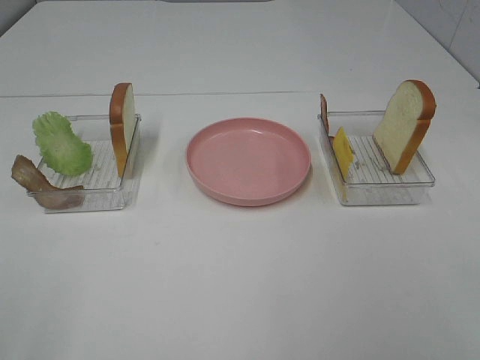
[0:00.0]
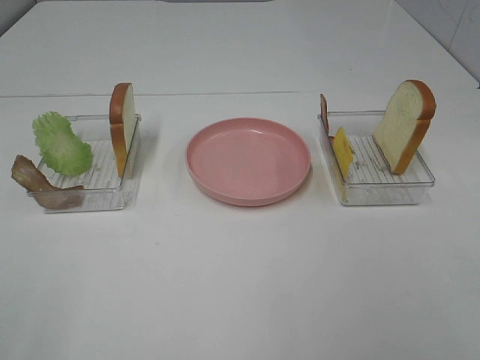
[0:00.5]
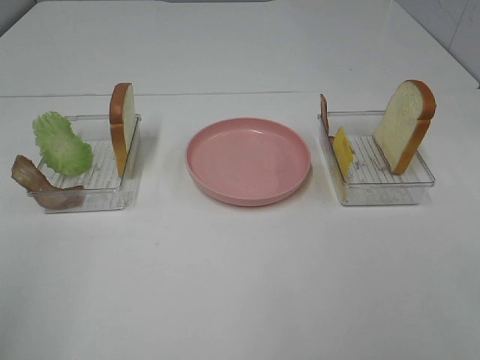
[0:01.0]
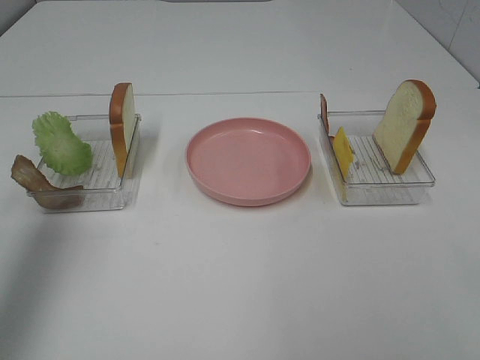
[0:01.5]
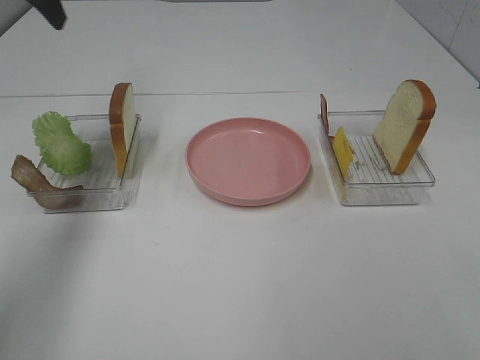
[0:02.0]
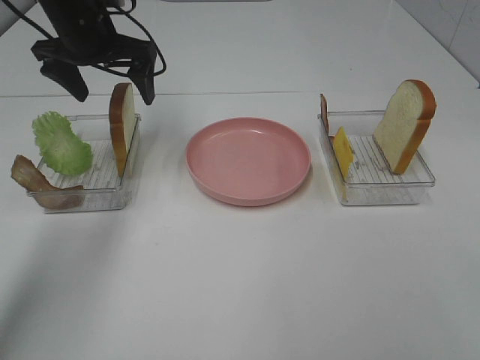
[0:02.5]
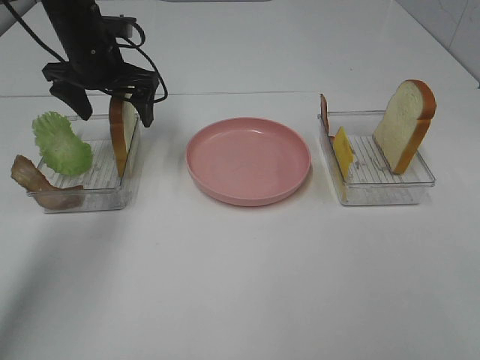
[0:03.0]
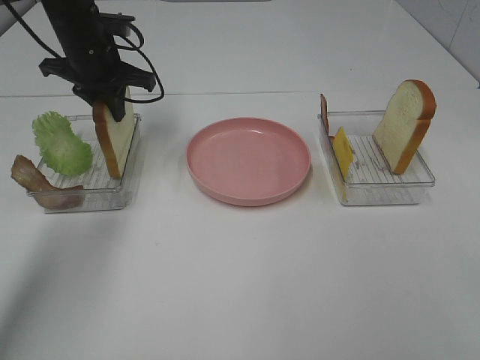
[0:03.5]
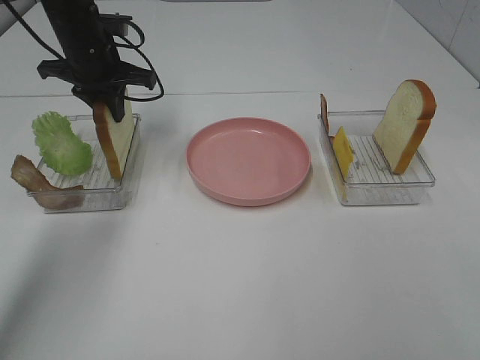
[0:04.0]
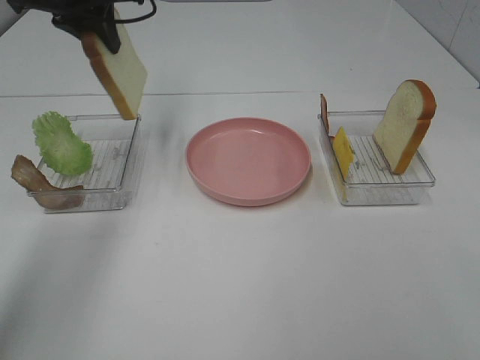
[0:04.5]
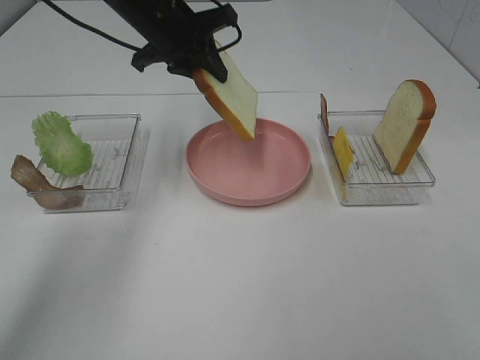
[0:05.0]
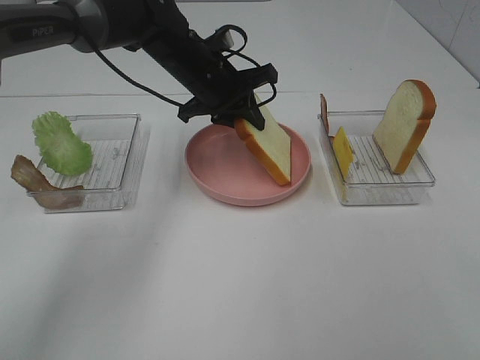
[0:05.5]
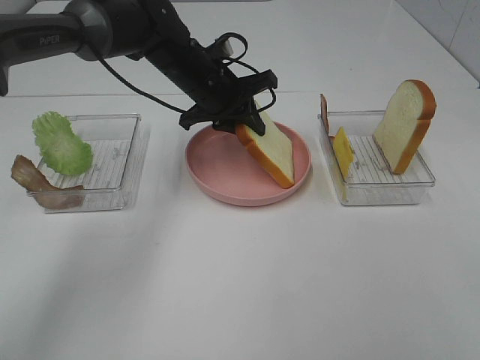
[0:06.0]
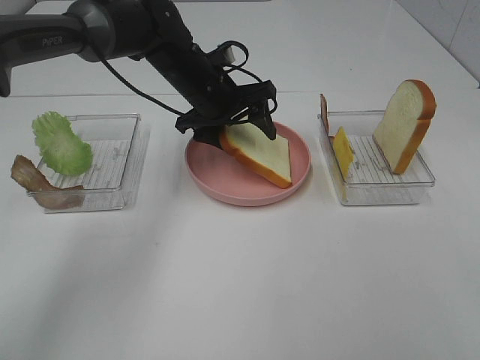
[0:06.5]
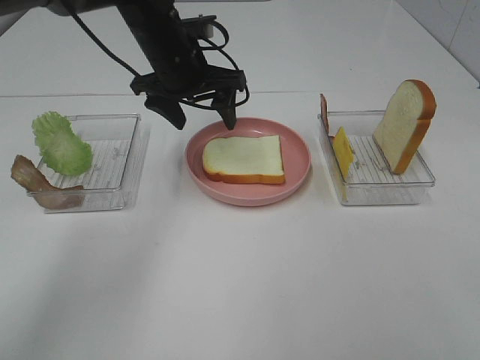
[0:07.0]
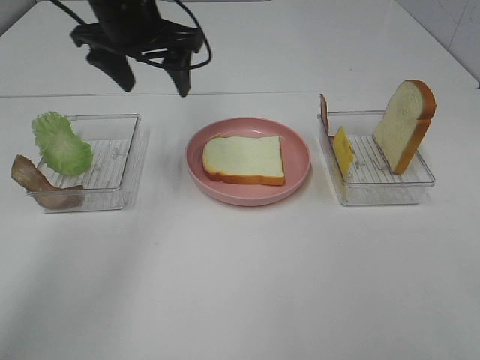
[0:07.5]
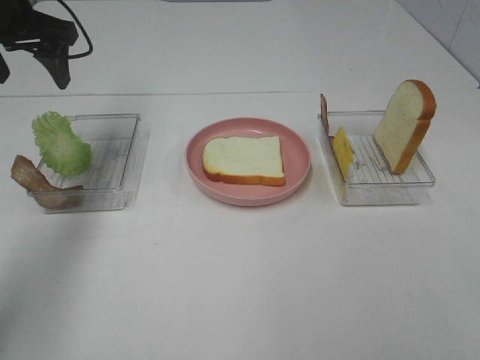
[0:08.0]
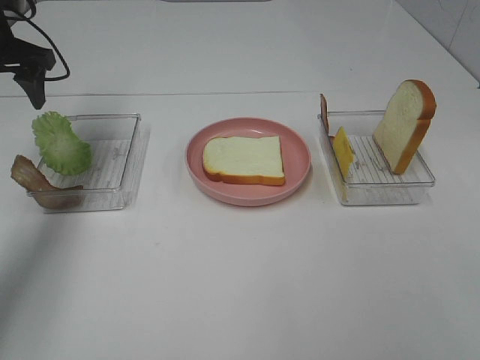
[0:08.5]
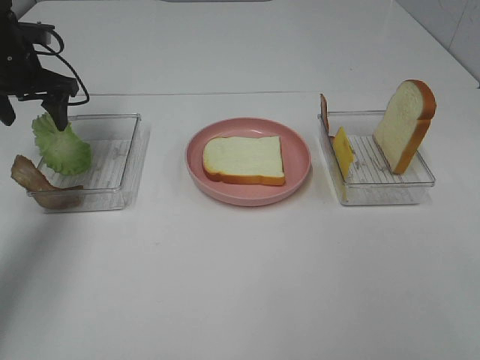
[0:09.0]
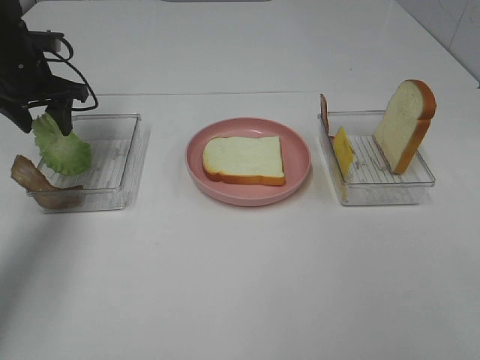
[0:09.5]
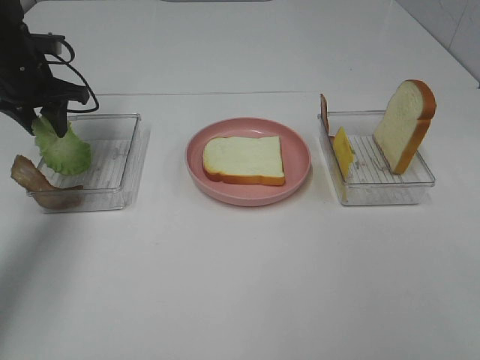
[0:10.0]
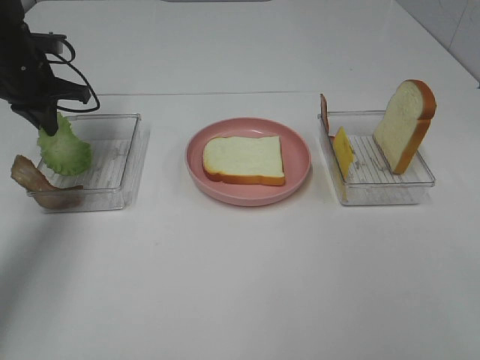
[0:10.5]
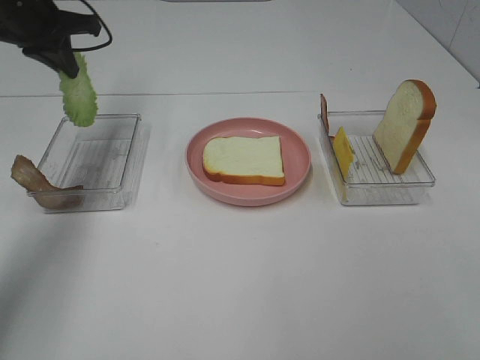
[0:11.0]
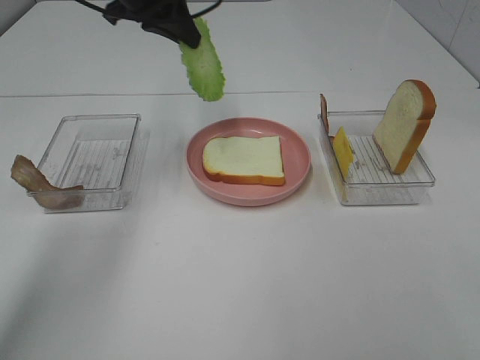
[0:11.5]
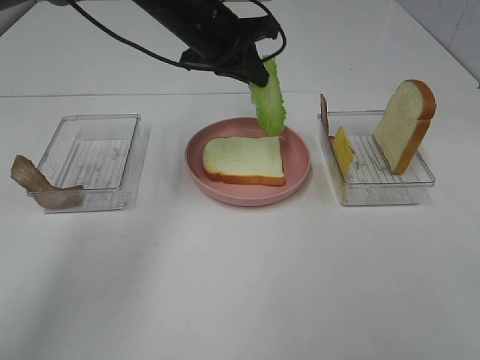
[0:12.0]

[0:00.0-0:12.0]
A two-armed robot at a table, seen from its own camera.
Task of the whole recording: Make sandwiches.
Step, 0:00.0 to 0:04.0: Left hand:grab the bread slice.
Step, 0:04.5 to 0:07.0: Left hand:place the bread slice on the plate.
Step, 0:07.5 to 0:10.0: Left hand:grab the lettuce slice.
0:00.0 to 0:02.0: The left gripper moves forward, some 40 cm.
0:02.0 to 0:04.0: The left gripper goes some 15 cm downward, forward and to the right, and closes its fingers.
0:04.0 to 0:06.0: The left gripper is displaced to the right by approximately 15 cm, and reaches some 10 cm upward, then returns.
0:06.0 to 0:08.0: The left gripper moves to the left and upward, some 25 cm, and opens its fingers.
0:08.0 to 0:10.0: The left gripper goes roughly 10 cm downward and forward.
0:10.0 to 0:12.0: The left gripper heads to the right, covering some 25 cm, and closes up.

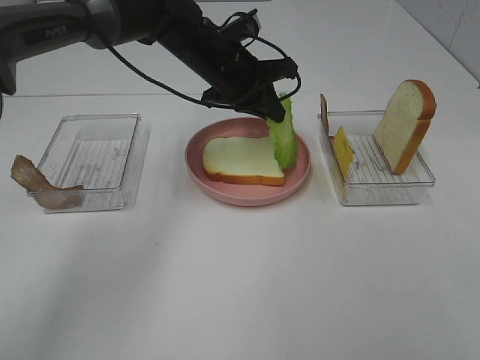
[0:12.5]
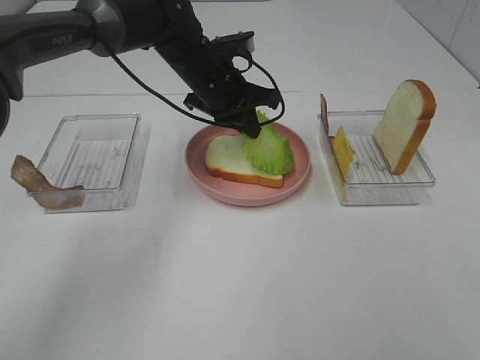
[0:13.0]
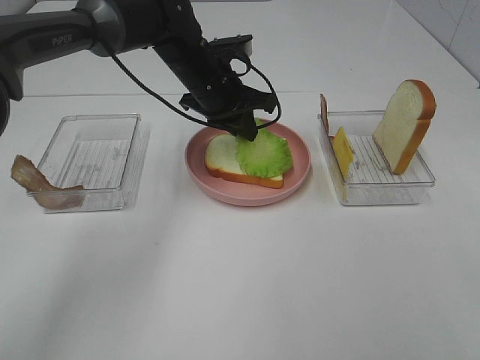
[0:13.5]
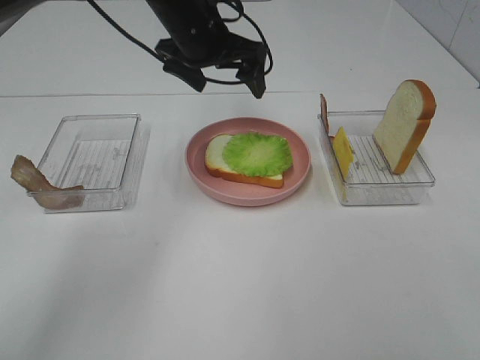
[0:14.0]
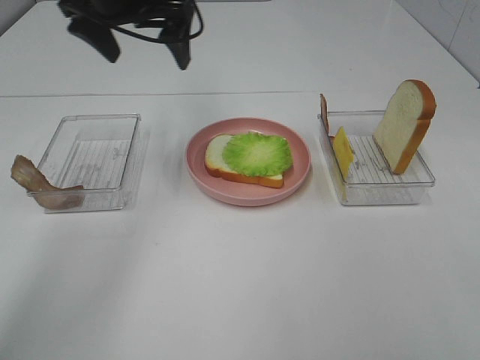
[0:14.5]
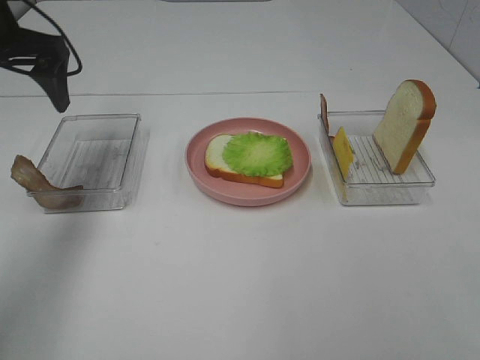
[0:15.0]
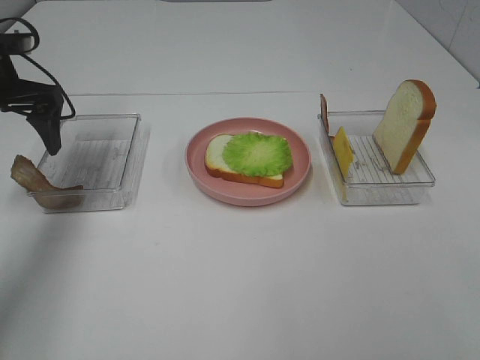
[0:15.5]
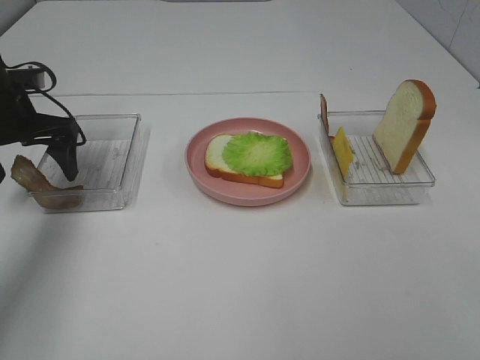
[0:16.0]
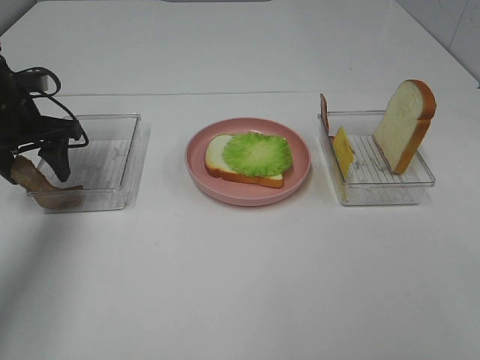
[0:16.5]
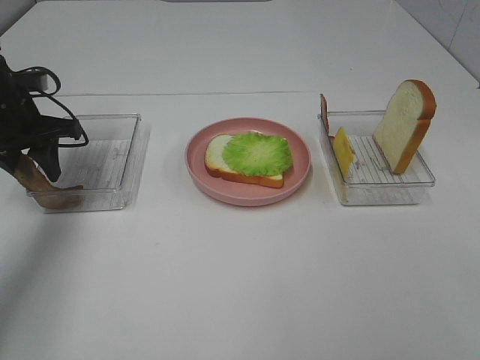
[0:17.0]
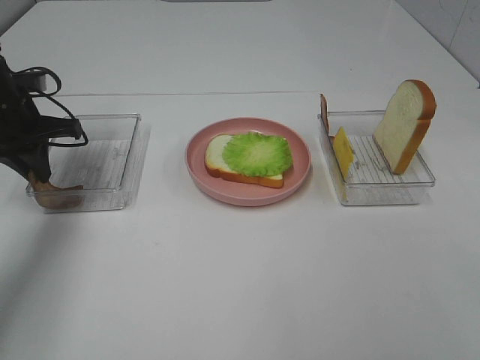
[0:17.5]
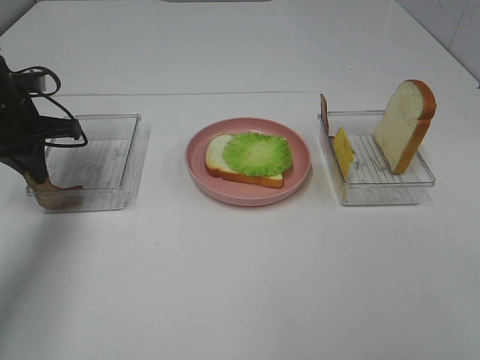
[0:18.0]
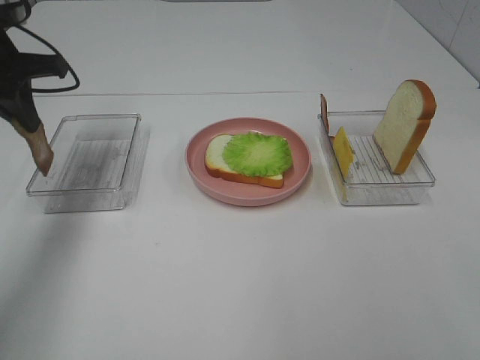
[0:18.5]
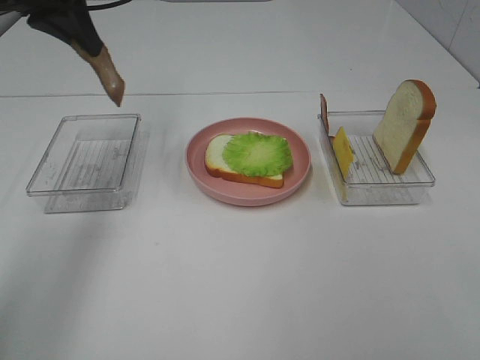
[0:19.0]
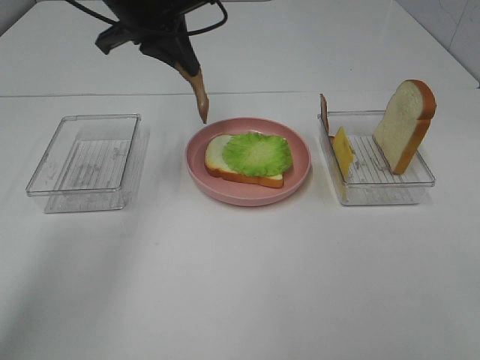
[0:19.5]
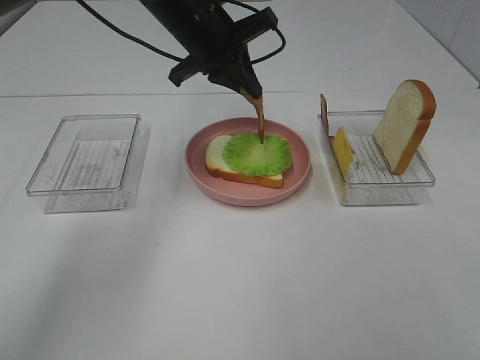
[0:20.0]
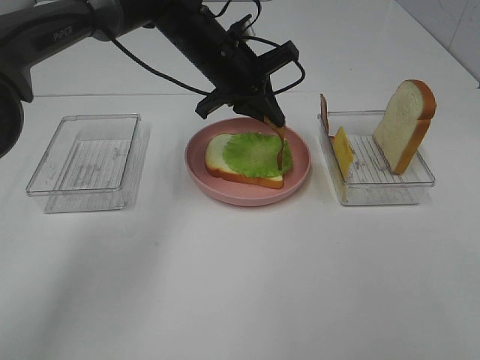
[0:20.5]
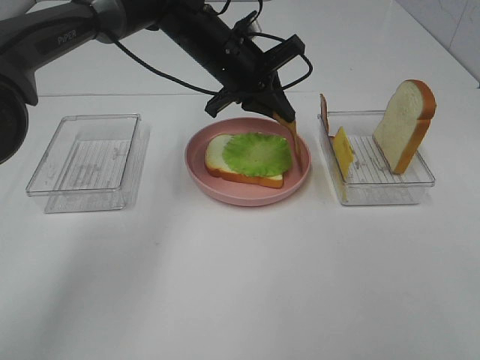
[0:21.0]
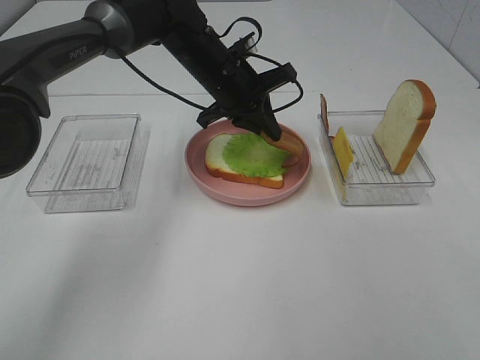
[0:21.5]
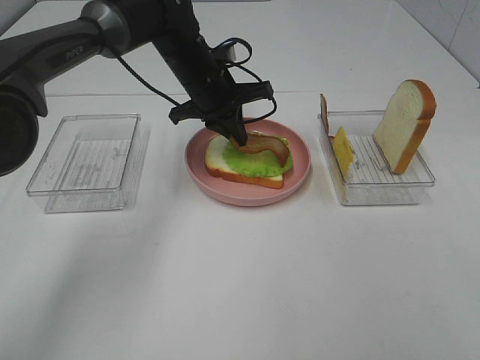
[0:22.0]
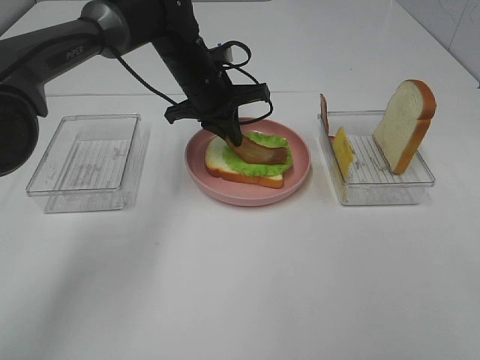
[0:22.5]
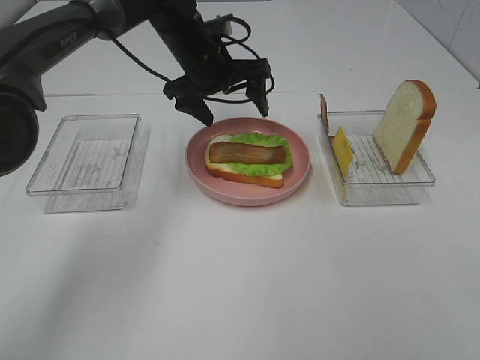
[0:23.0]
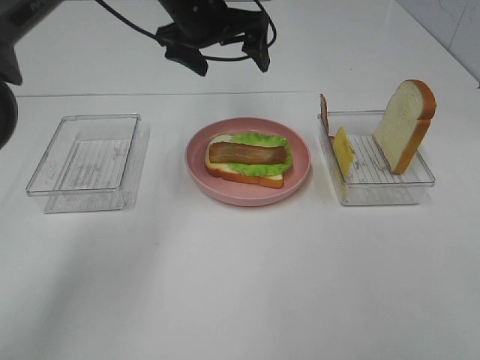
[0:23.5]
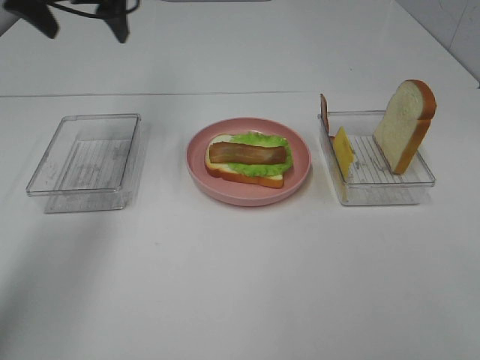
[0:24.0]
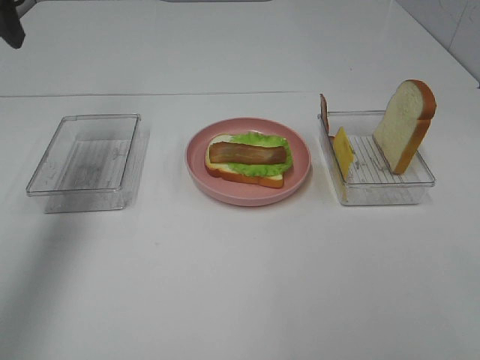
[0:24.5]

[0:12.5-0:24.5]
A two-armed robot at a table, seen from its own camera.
Task of the whole recording: Make sandwiches.
Step, 0:14.0 to 0:17.5: Left hand:grab the bacon.
Step, 0:18.0 to 0:23.0: Left hand:place bacon on lettuce slice.
0:12.5 to 0:14.5: The left gripper moves upward and to the left, roughly 15 cm, and opens up.
0:14.5 to 0:16.5: The left gripper travels to the left and downward by approximately 20 cm, and closes its fingers.
0:16.5 to 0:18.5: The left gripper travels upward by roughly 10 cm, and closes.
0:18.5 to 0:20.5: The left gripper moves to the right, about 25 cm.
0:20.5 to 0:22.5: There are only small adjustments of the grippers.
0:22.5 to 0:24.5: The left gripper is displaced to the left, upward and backward by approximately 35 cm, and opens.

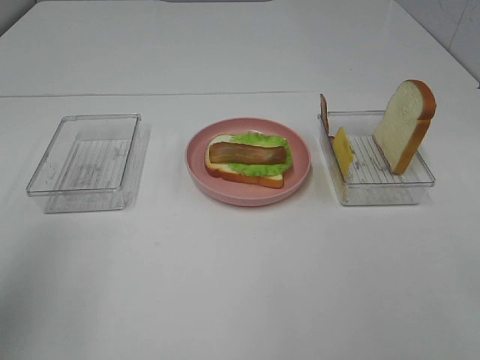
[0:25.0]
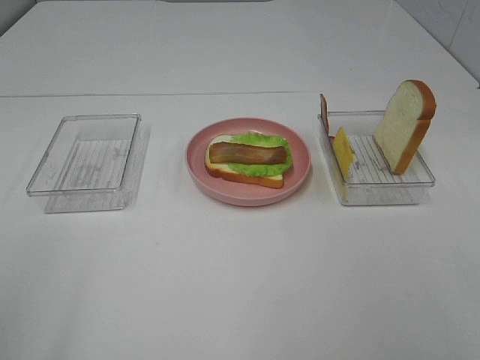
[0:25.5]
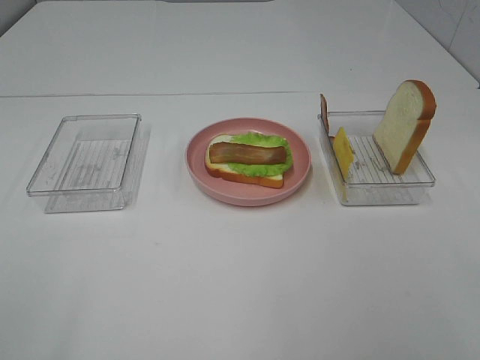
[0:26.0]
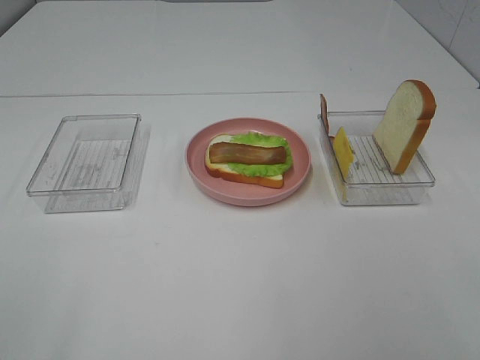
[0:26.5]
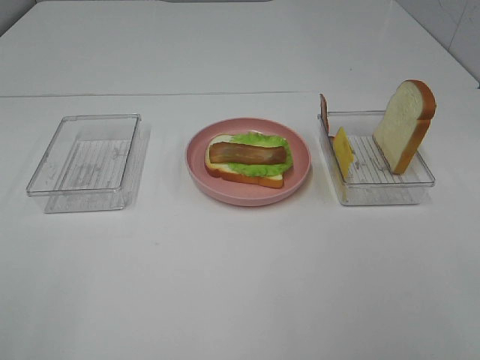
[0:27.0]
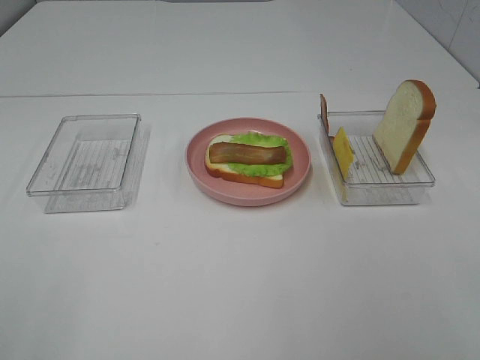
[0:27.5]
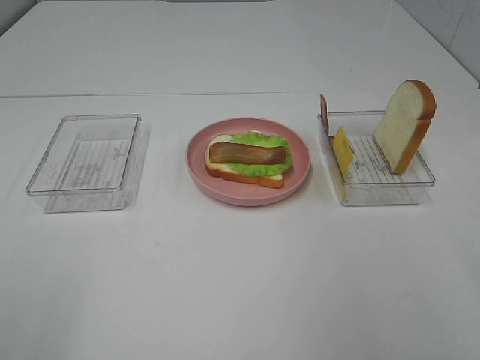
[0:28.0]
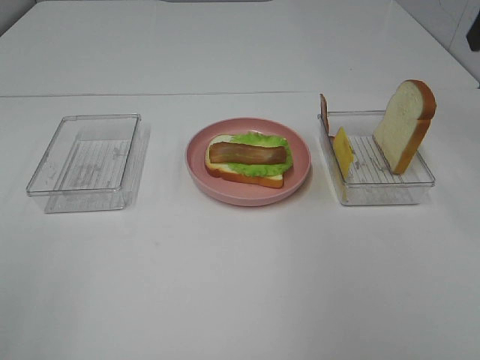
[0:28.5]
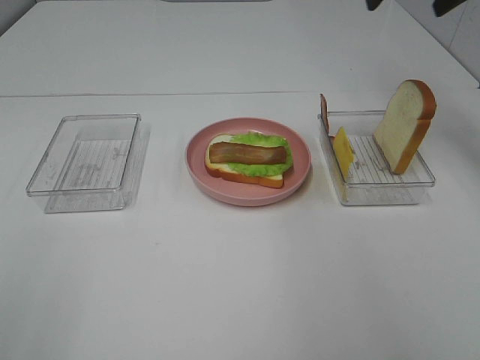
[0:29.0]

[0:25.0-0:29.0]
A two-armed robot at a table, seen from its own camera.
Task of the whole recording: Make sandwiches.
0:25.0 to 0:27.0: The left gripper is displaced backward by some 15 cm.
0:27.0 to 0:29.0: The right gripper shifts some 40 cm forward.
